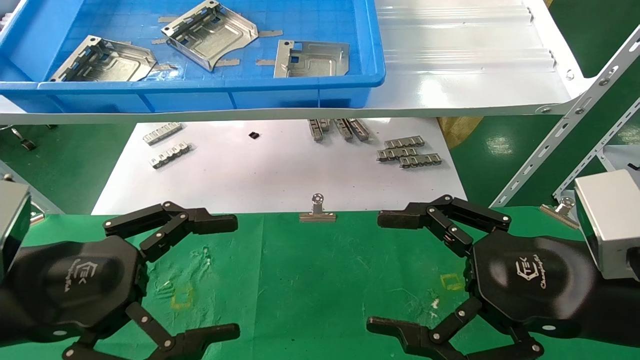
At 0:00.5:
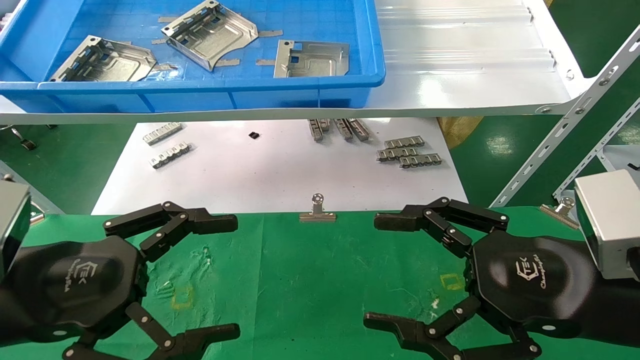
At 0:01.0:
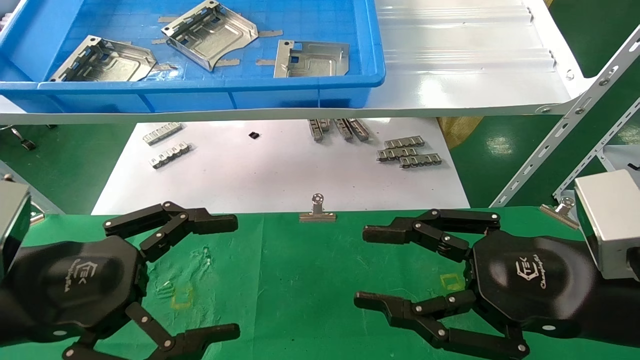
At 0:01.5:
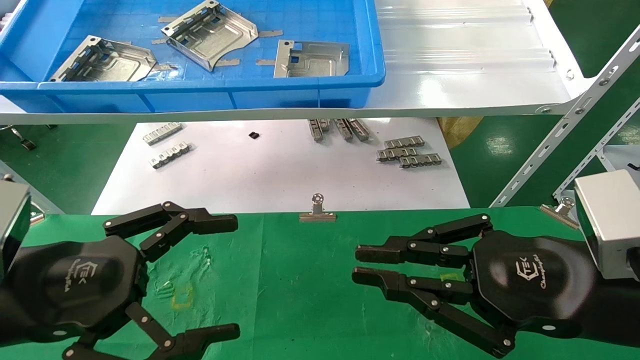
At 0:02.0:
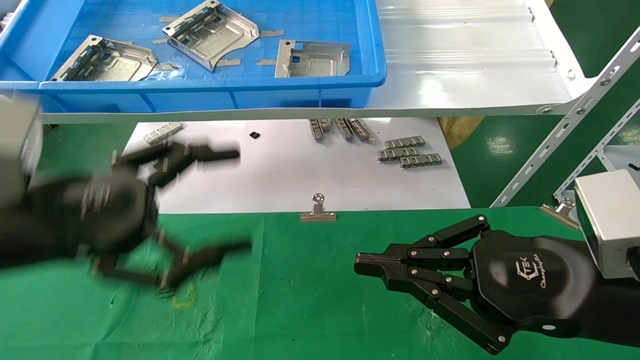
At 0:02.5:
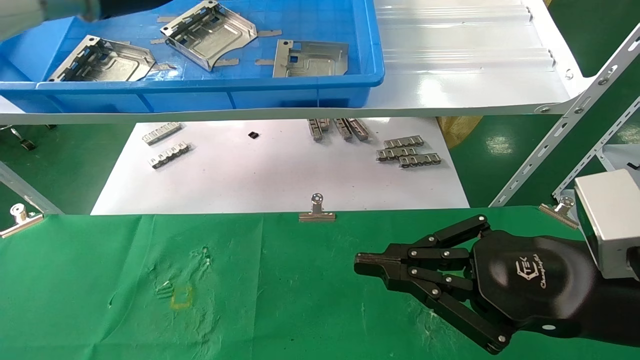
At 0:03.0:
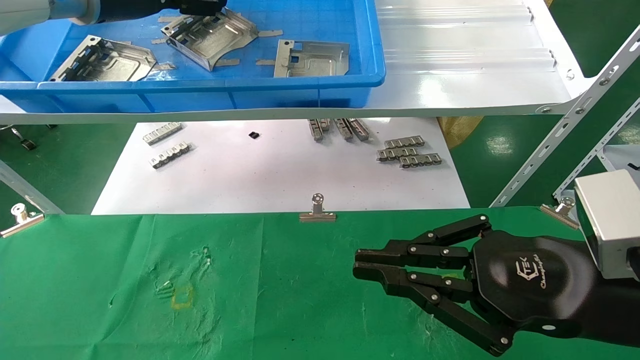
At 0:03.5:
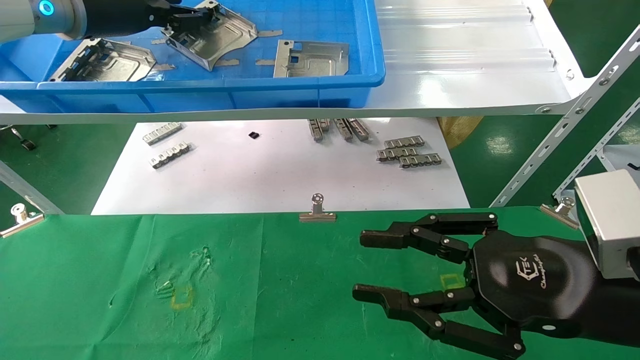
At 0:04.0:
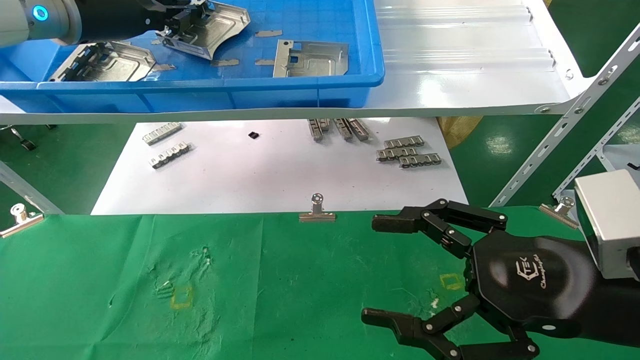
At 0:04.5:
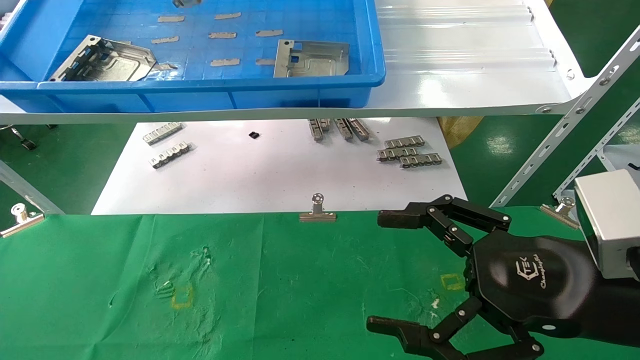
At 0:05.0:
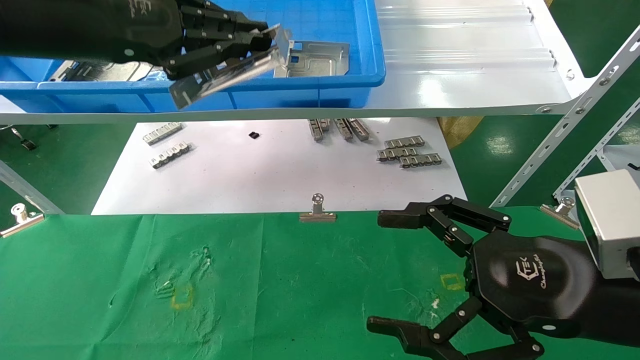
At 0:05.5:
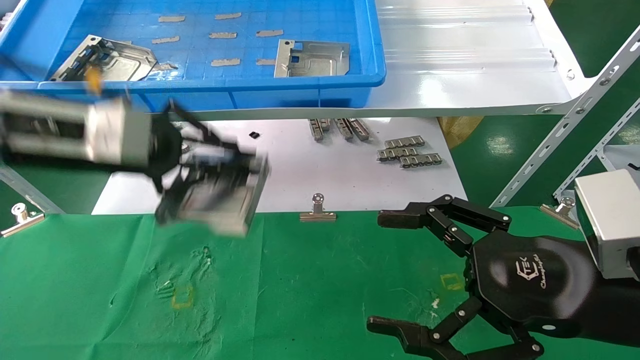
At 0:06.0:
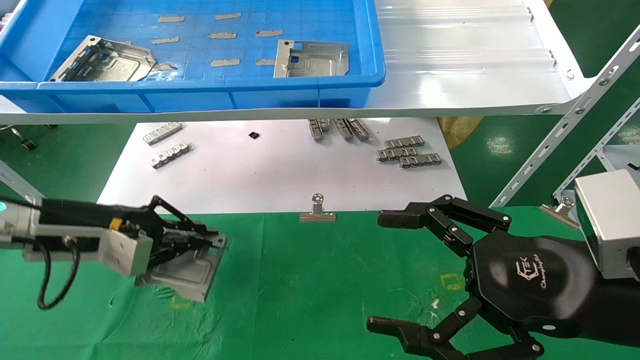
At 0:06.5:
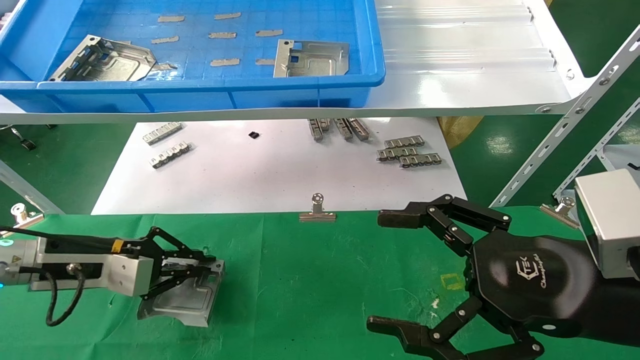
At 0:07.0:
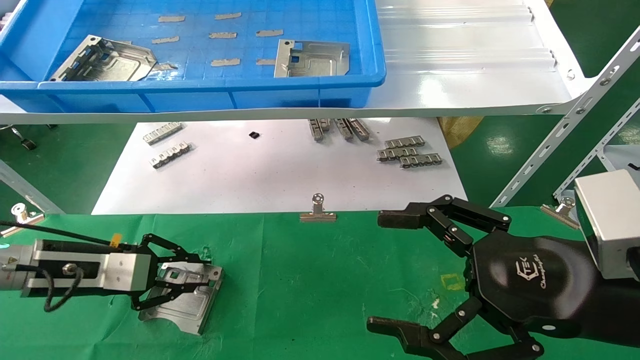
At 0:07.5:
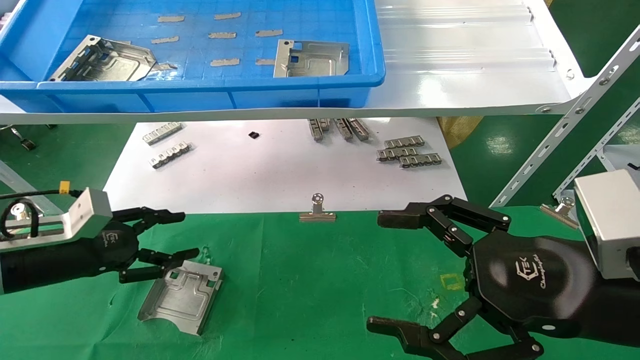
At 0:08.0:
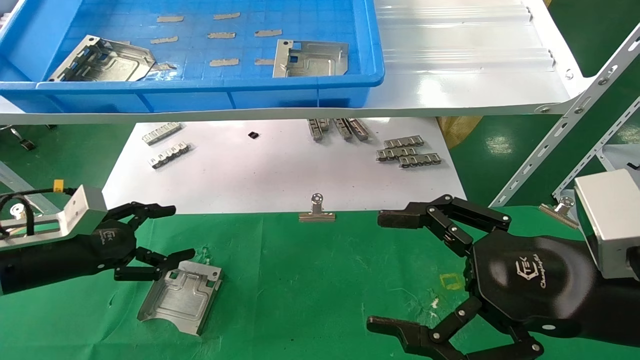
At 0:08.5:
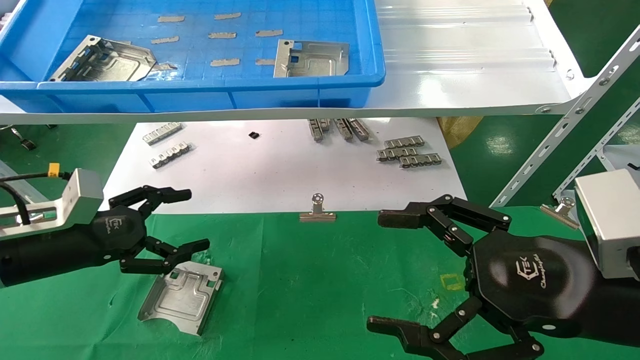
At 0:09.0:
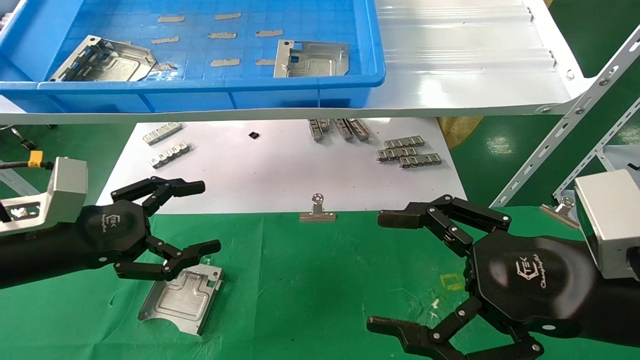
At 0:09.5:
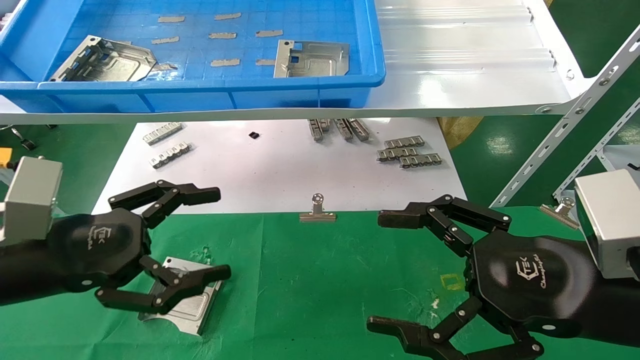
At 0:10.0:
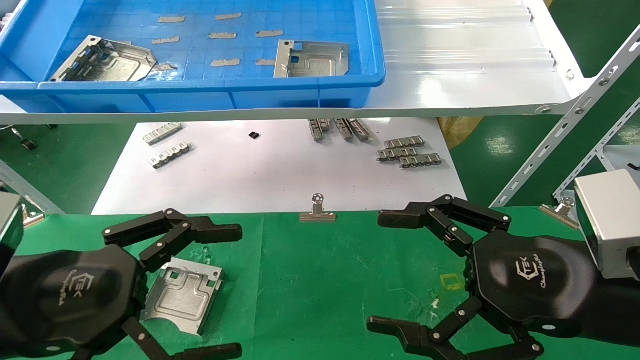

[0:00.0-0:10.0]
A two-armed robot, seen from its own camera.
Task of the whole recording: use the mechanical arm to pick up the parts and place them on the table.
Step, 0:02.5 to 0:04.0: Pick up the hard drive bracket from the feeding area.
Step, 0:04.5 to 0:06.5: Place the hard drive bracket into the box.
0:00.0 to 0:02.0: The left gripper moves upward and forward, about 10 cm, while the right gripper closes its fingers.
0:02.0 to 0:04.0: The left gripper travels forward and upward by approximately 20 cm, and closes its fingers. The right gripper opens.
0:04.0 to 0:06.0: The left gripper is displaced downward by roughly 25 cm.
0:06.0 to 0:08.0: The left gripper ends up roughly 5 cm from where it was, and opens up.
0:08.0 to 0:10.0: The left gripper heads backward, to the right and upward, covering some 20 cm.

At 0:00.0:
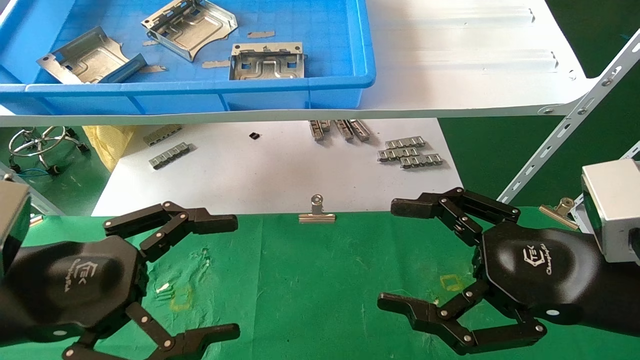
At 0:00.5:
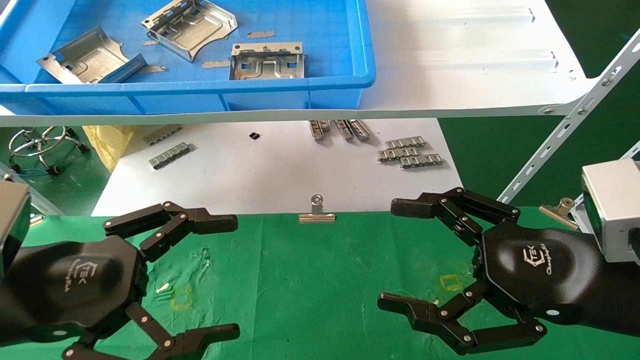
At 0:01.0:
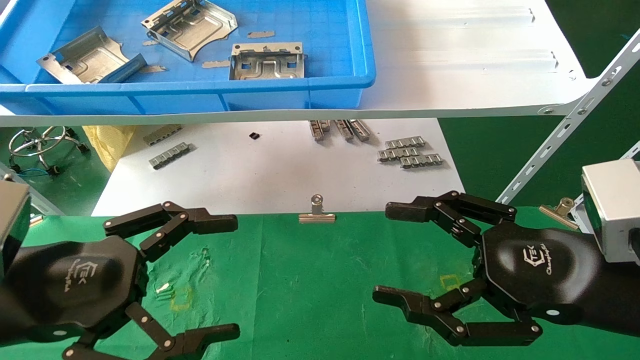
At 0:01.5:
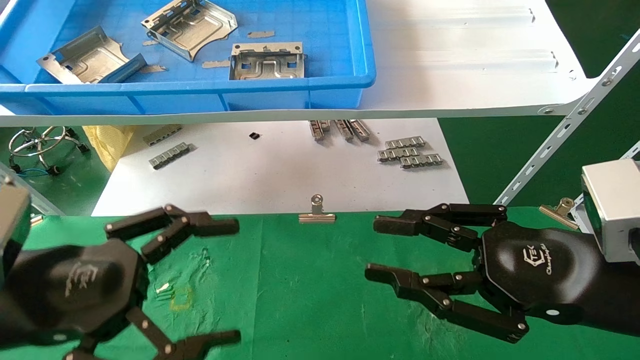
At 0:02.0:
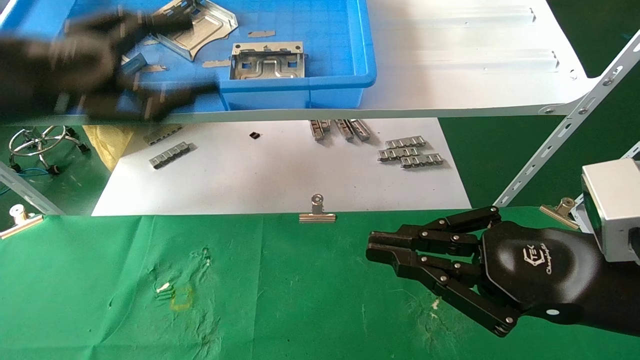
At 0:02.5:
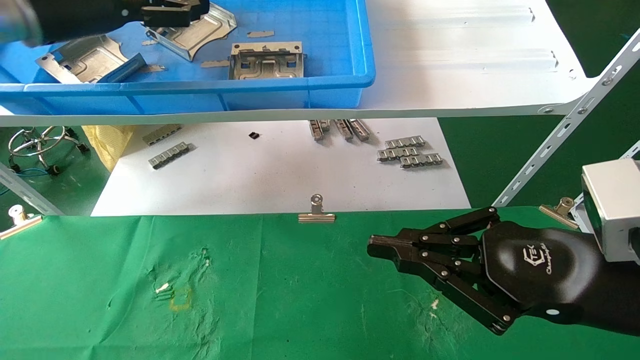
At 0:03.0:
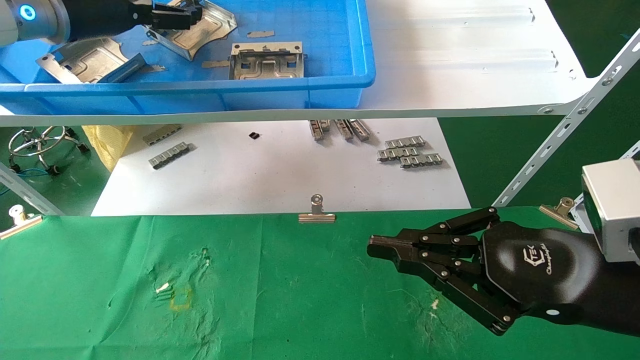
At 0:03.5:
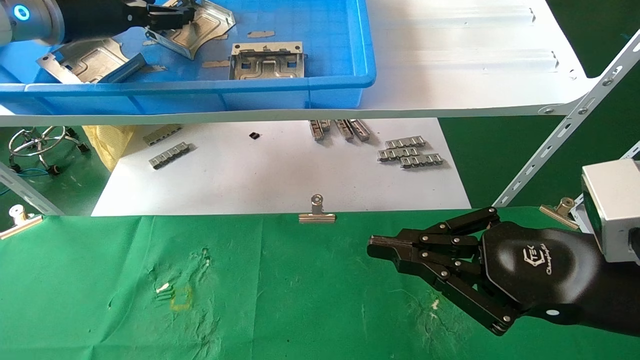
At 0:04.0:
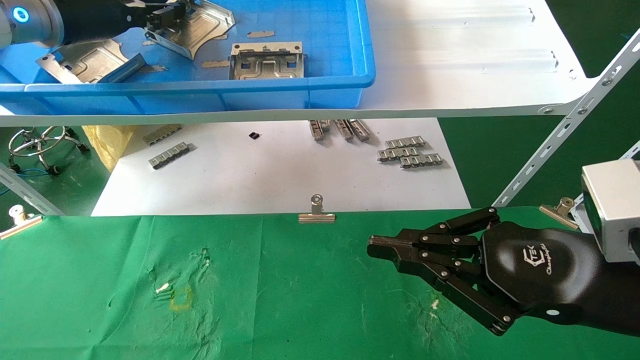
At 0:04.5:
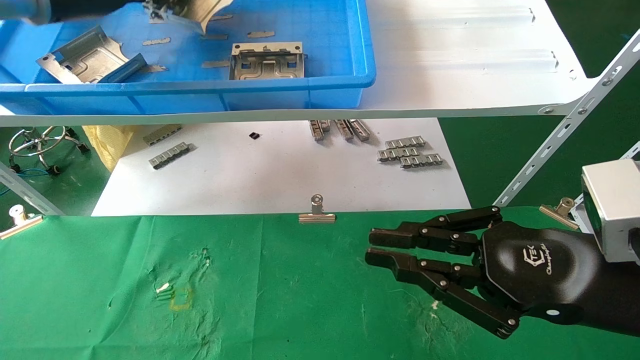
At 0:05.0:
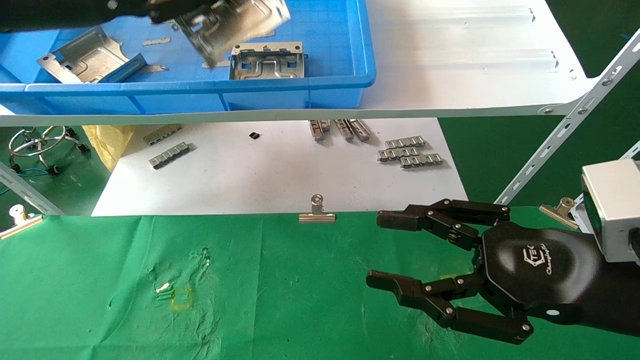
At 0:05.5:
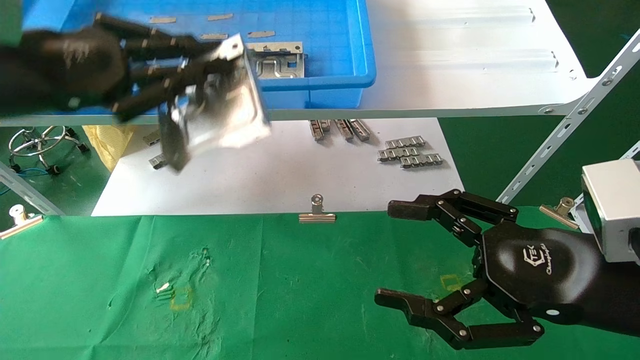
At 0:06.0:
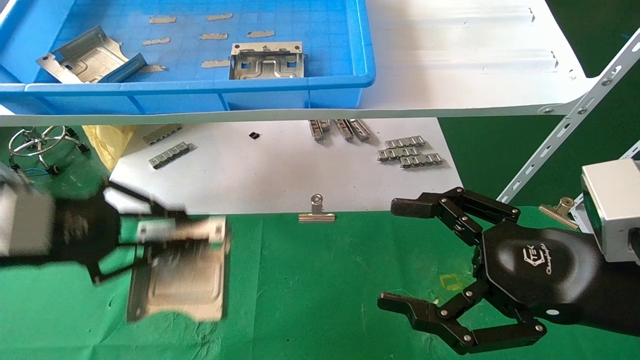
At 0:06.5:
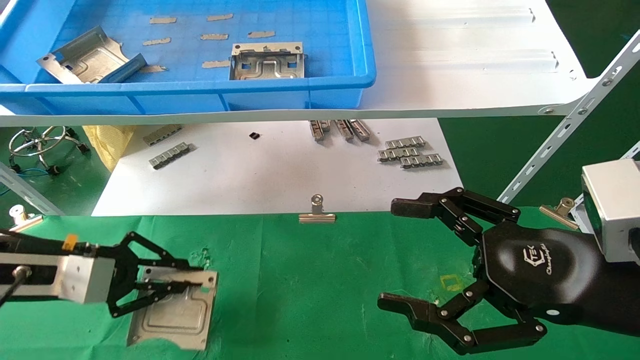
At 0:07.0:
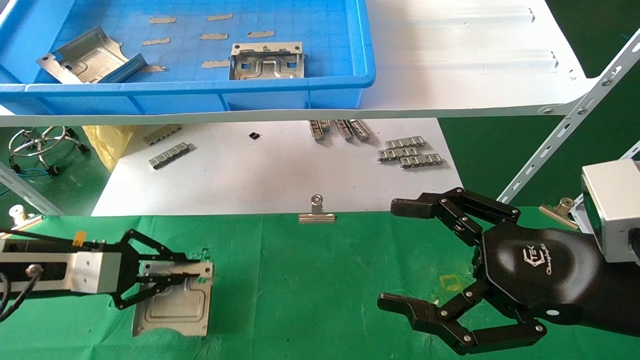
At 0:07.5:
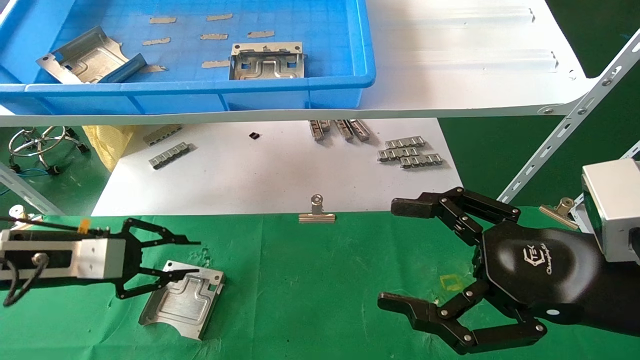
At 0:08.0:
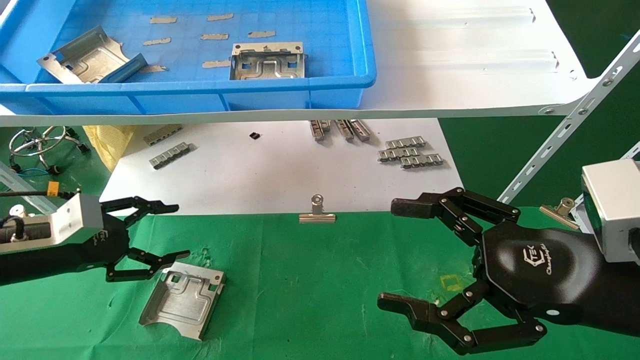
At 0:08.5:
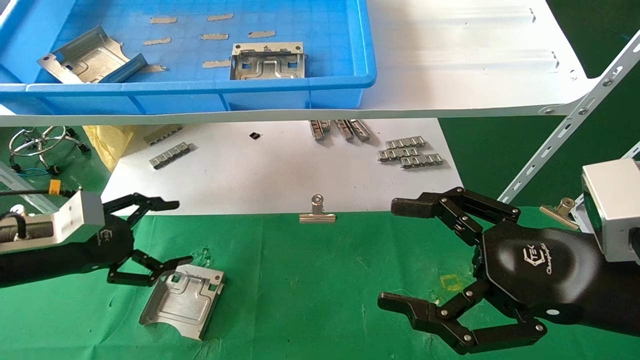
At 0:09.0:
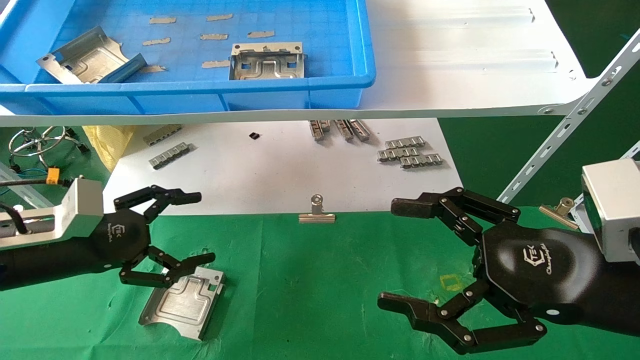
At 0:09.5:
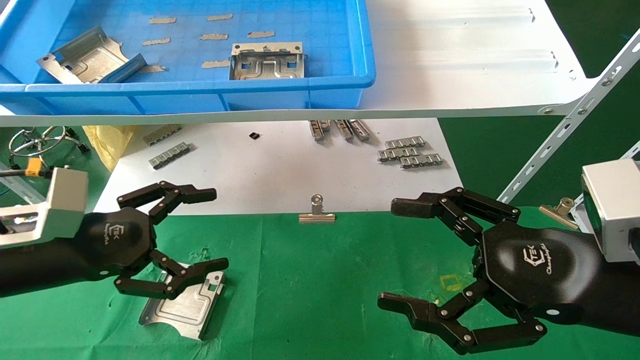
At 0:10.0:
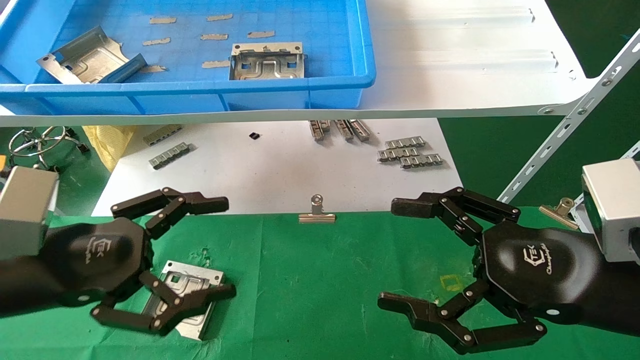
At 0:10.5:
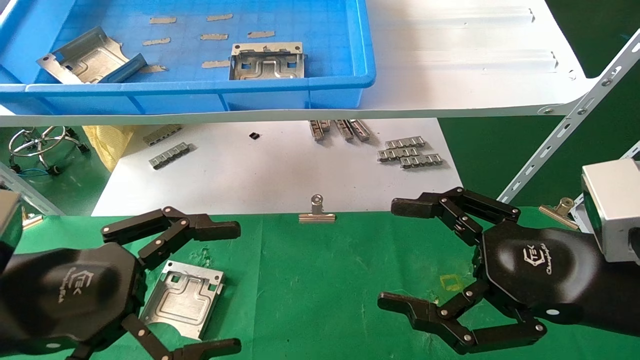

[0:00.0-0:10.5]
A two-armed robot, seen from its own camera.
Task of the whole recording: use the mechanical arm to pick up the parts and place them on the table.
Step, 0:02.5 to 0:04.5: Pick up the hard drive bracket from the feeding area.
Step, 0:05.0 to 0:07.0: Place the hard drive bracket into the box.
0:00.0 to 0:02.0: The right gripper closes. Meanwhile the left gripper heads upward and forward, covering approximately 20 cm.
0:02.0 to 0:04.0: The left gripper heads forward and upward, covering roughly 15 cm, and closes.
0:04.0 to 0:06.5: The left gripper shifts about 30 cm downward and backward. Meanwhile the right gripper opens up.
0:06.5 to 0:08.5: The left gripper opens.
0:08.5 to 0:10.5: The left gripper travels backward and to the right by about 20 cm.
